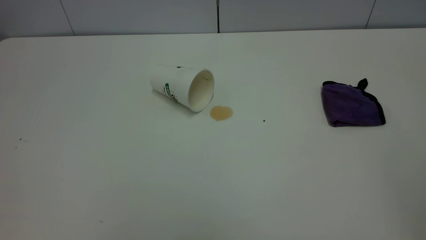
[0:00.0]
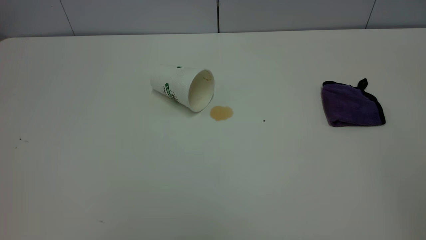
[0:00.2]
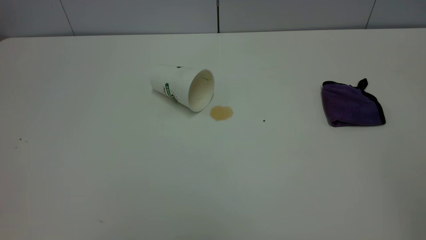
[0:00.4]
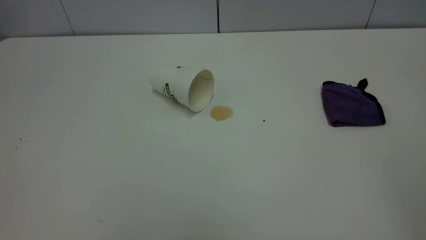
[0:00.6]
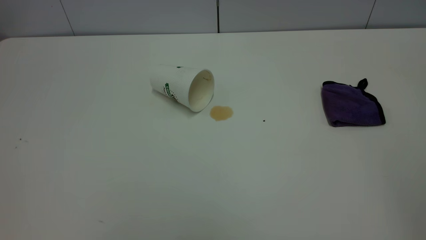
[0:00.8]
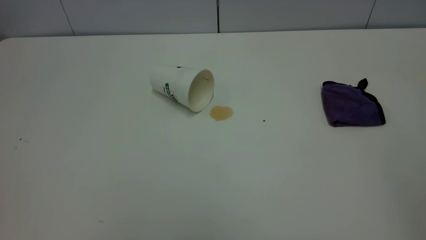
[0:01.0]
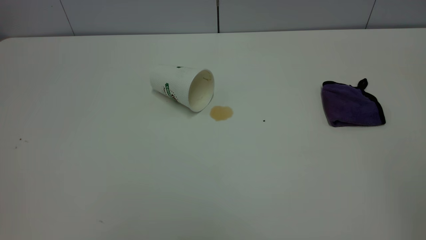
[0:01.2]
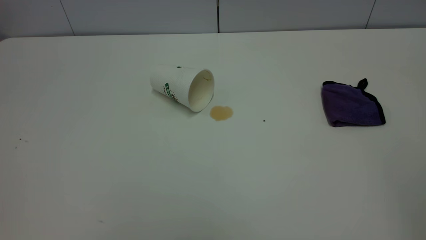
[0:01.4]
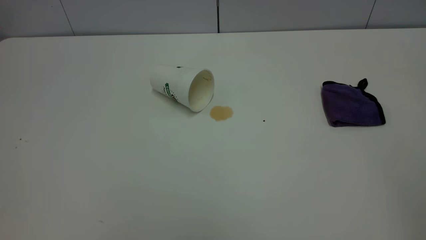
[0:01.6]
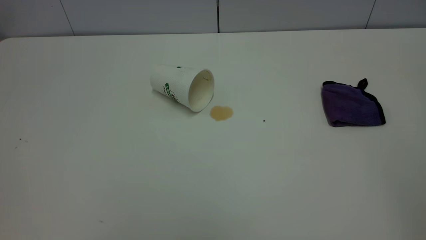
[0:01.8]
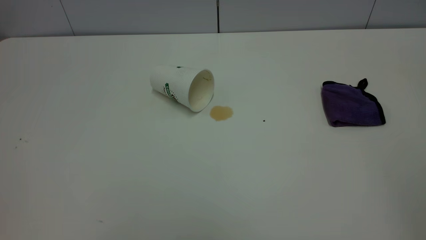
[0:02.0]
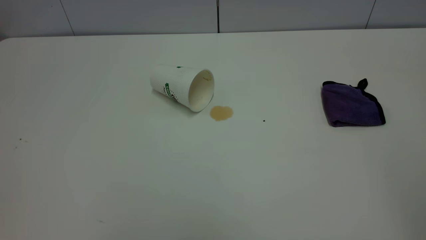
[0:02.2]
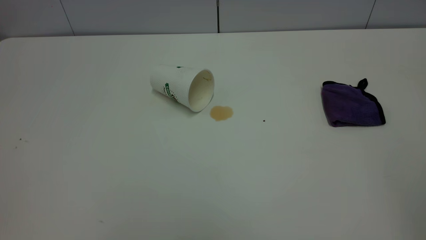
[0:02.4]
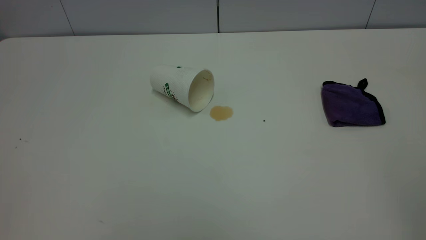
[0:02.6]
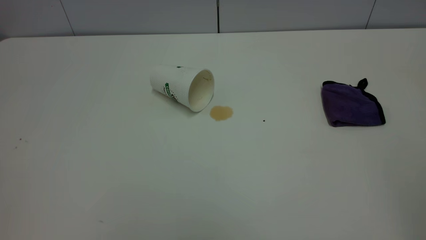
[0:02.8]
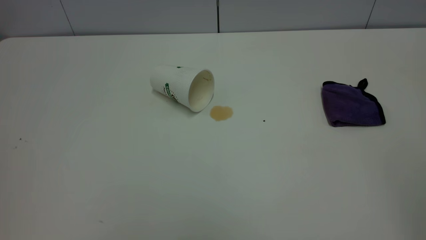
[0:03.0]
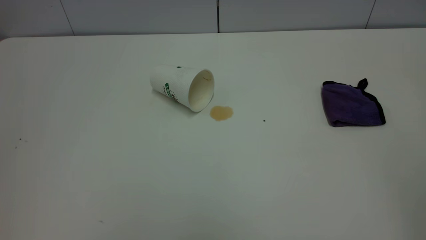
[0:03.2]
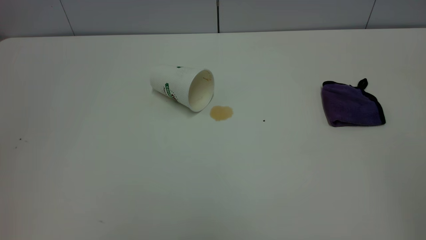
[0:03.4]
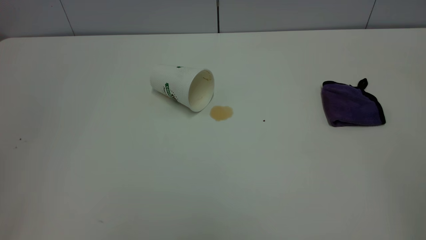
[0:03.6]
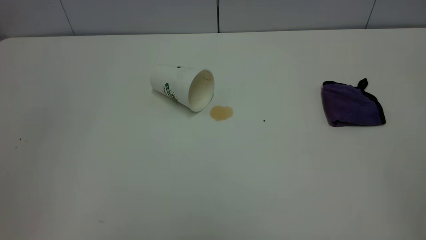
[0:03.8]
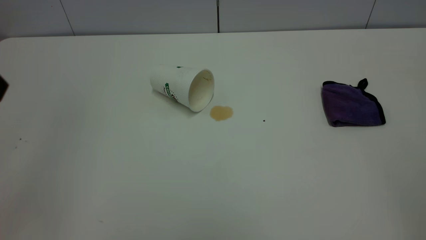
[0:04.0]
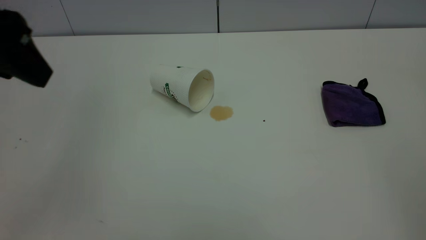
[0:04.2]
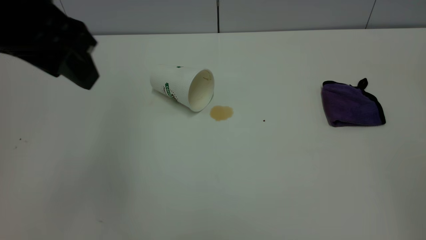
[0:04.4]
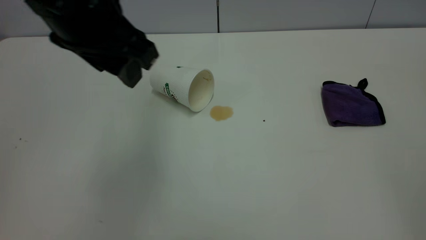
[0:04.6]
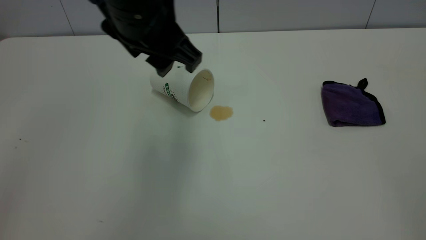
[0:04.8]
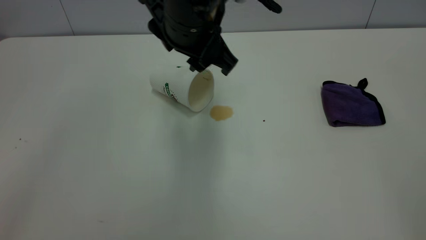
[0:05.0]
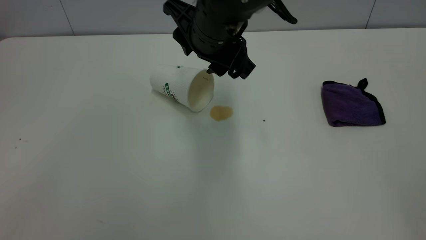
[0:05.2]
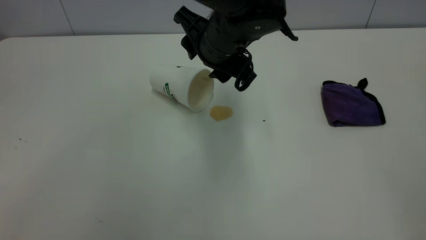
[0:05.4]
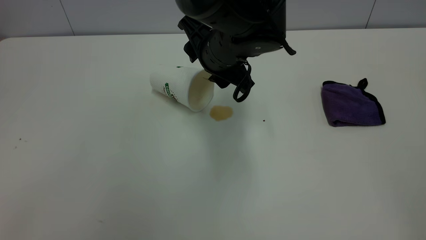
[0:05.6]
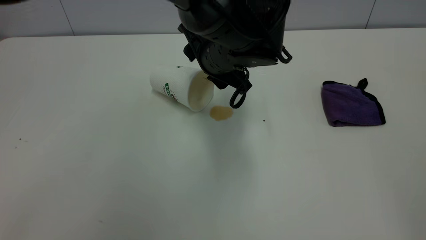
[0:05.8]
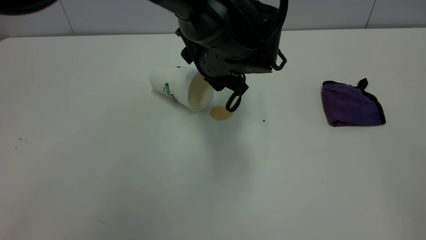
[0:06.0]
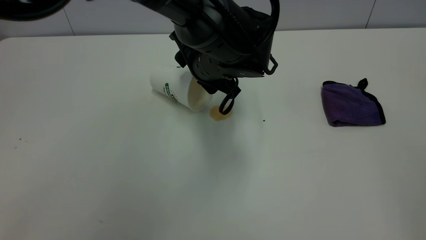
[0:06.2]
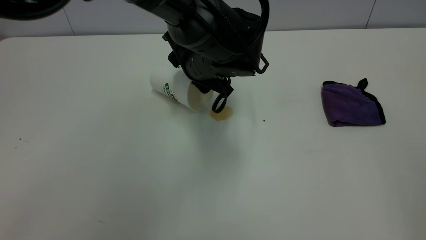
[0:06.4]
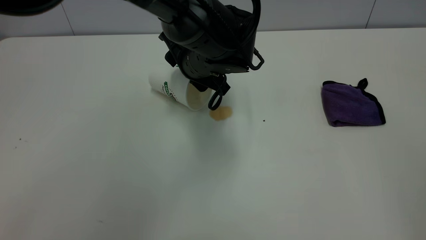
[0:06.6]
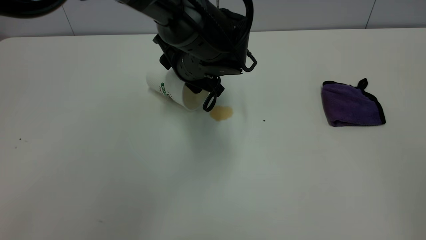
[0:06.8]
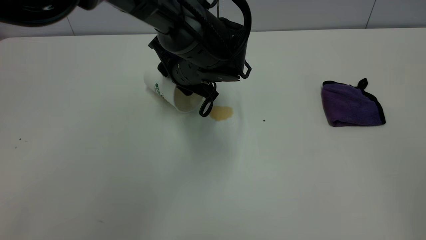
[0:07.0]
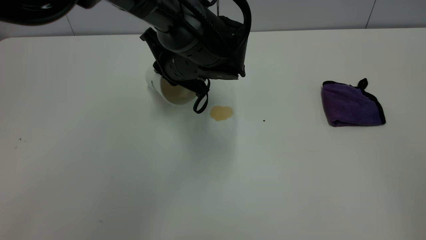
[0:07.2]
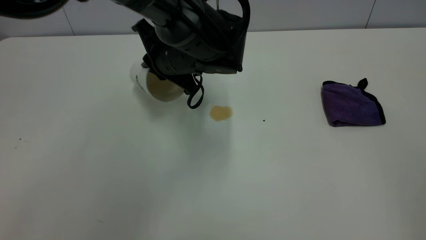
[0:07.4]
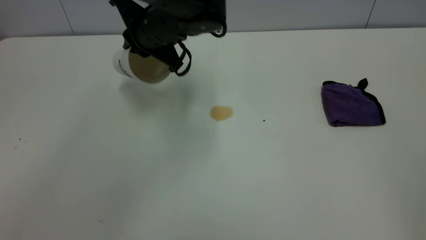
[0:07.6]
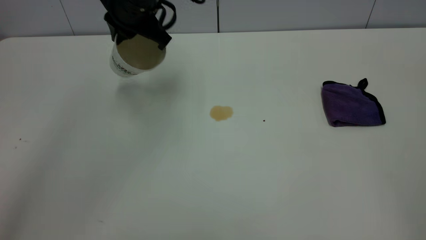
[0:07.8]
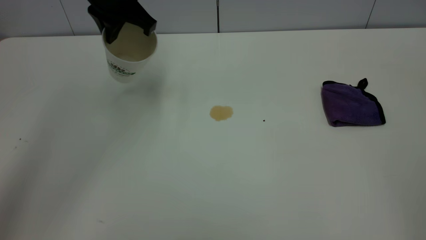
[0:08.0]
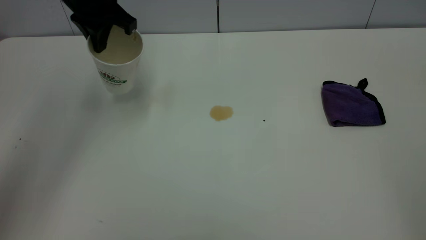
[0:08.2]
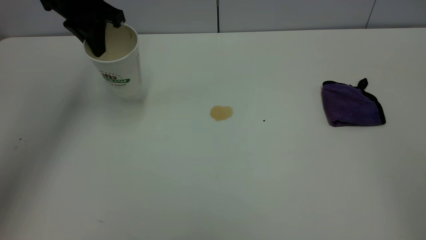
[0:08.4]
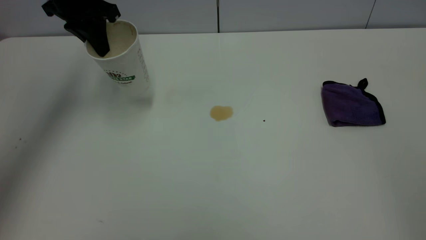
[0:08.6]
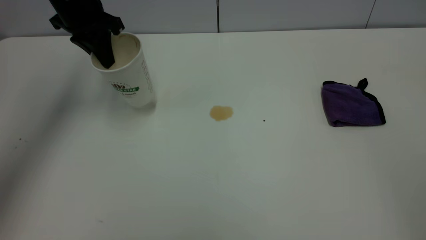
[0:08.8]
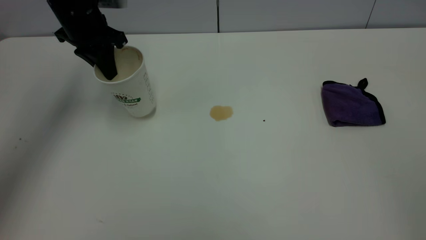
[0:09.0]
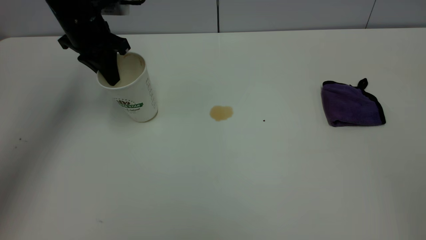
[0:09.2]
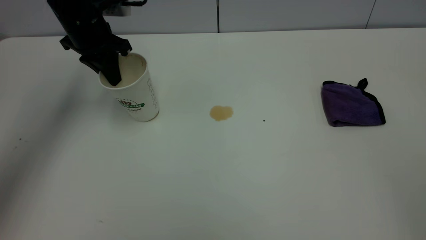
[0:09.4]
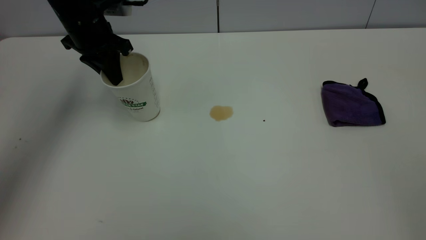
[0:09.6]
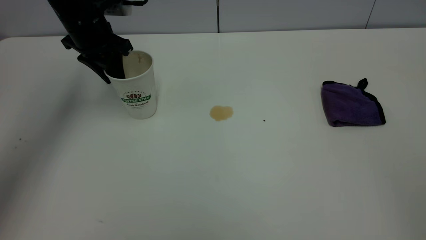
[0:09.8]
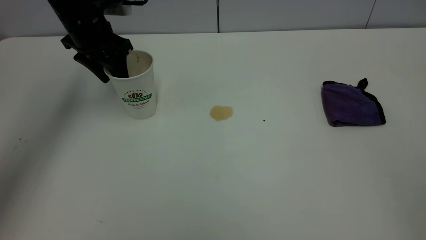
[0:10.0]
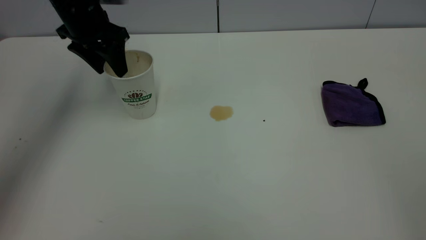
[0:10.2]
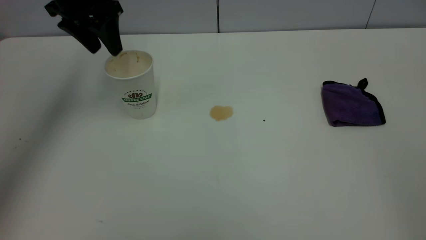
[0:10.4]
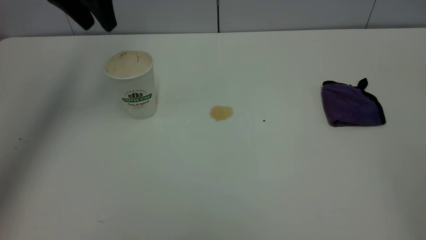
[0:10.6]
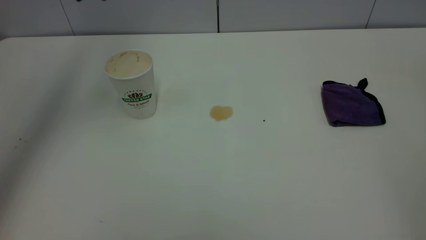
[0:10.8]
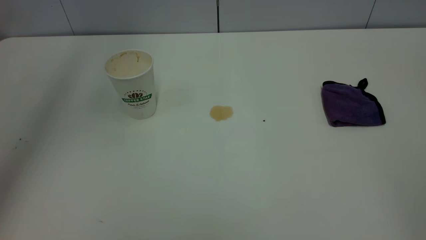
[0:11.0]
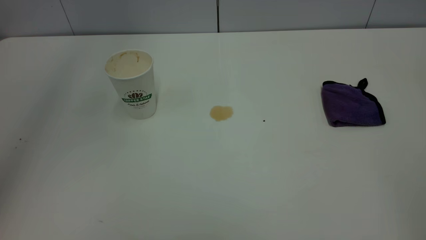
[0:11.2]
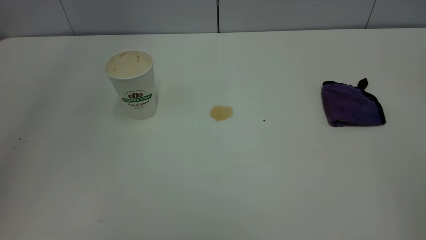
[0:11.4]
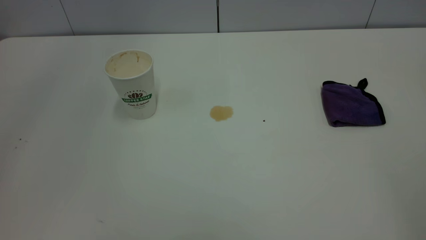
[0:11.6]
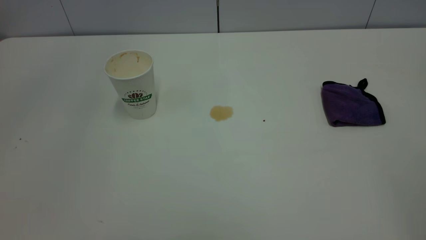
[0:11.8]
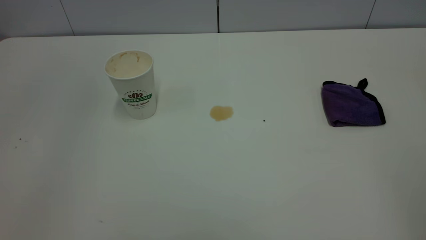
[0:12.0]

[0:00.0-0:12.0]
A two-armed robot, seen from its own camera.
Task of the whole recording: the left gripper pick up the fallen cup and place it upright, the right gripper grasp the purple rag and wipe the tea stain on the table, the right gripper put the purple rag back in its original position.
Step, 0:00.0 to 0:10.4: Stand the paper cup upright.
0:00.0 to 0:01.6: Both grippers stay about where they are.
0:03.0 to 0:04.4: The left gripper shifts some 25 cm forward and to the right.
0:04.4 to 0:06.0: The left gripper goes some 30 cm to the right, downward and forward.
0:06.0 to 0:07.6: The left gripper is displaced to the left by some 10 cm, and closes its fingers.
0:07.6 to 0:09.0: The left gripper heads to the left, covering some 15 cm.
0:09.0 to 0:10.4: The left gripper heads upward, covering roughly 5 cm, and opens its fingers.
0:10.4 to 0:12.0: The left gripper shifts roughly 35 cm backward and upward.

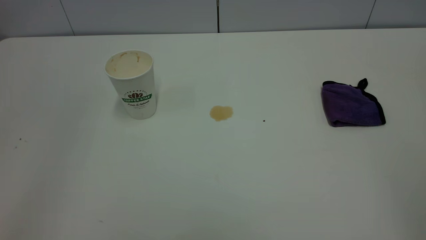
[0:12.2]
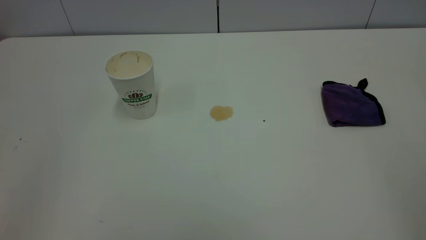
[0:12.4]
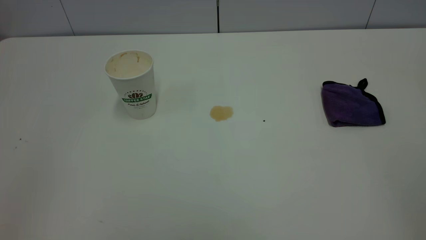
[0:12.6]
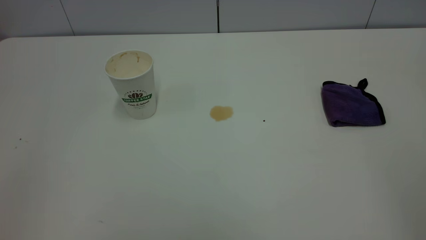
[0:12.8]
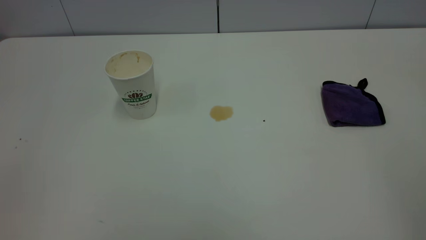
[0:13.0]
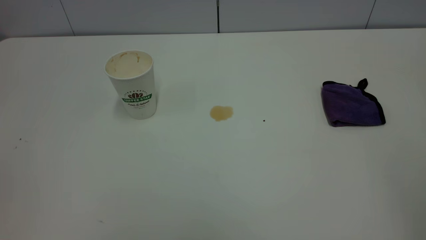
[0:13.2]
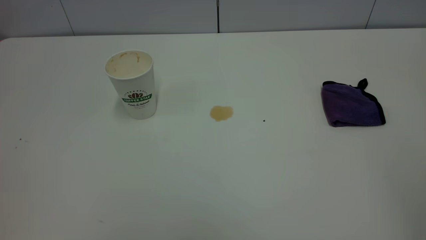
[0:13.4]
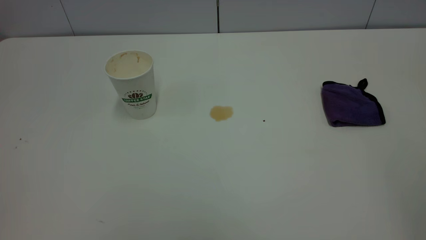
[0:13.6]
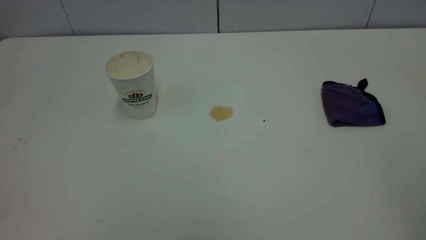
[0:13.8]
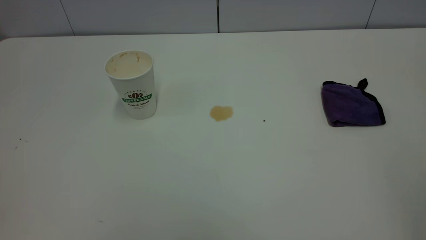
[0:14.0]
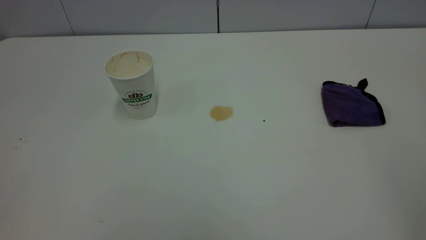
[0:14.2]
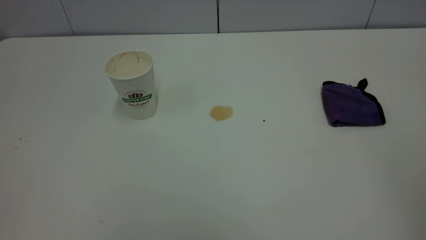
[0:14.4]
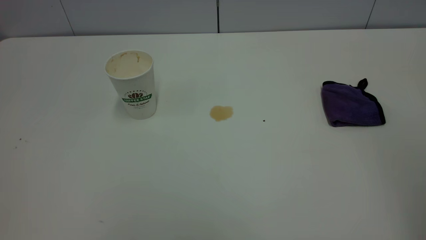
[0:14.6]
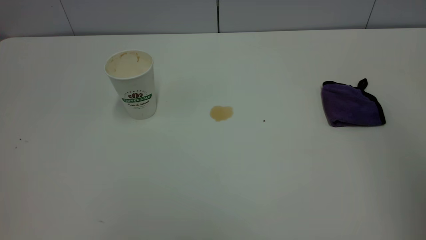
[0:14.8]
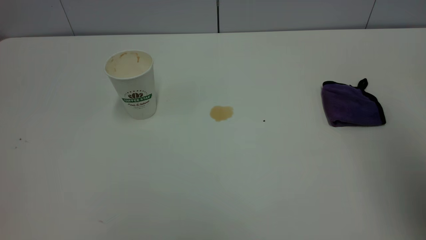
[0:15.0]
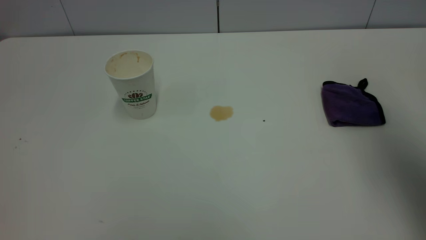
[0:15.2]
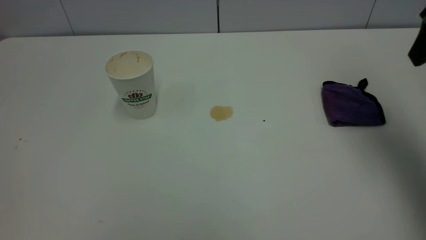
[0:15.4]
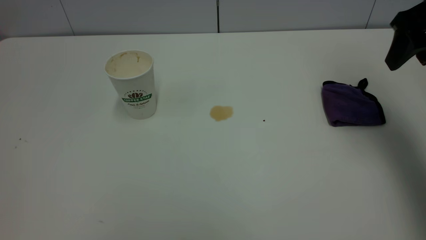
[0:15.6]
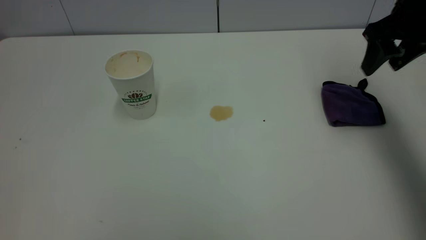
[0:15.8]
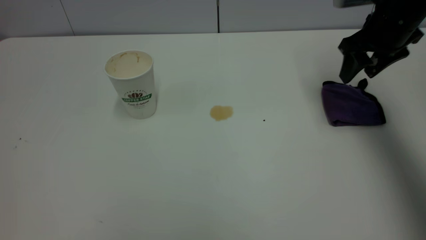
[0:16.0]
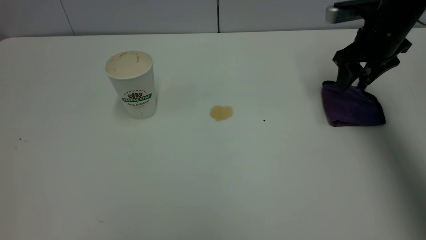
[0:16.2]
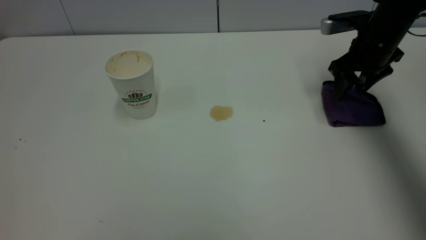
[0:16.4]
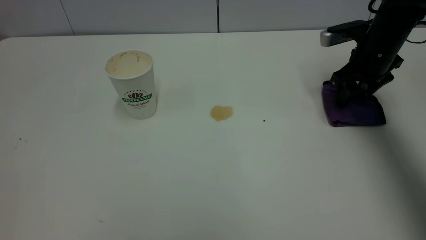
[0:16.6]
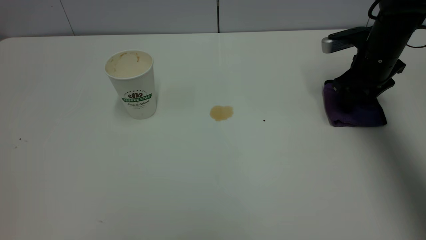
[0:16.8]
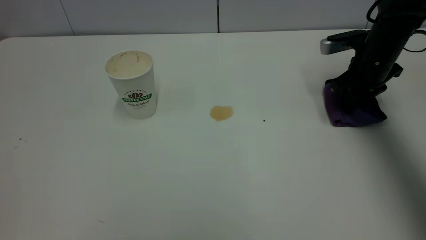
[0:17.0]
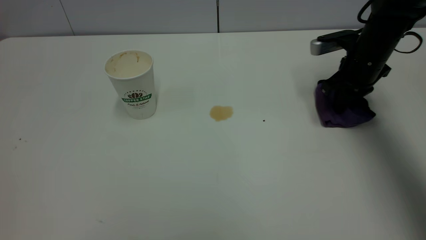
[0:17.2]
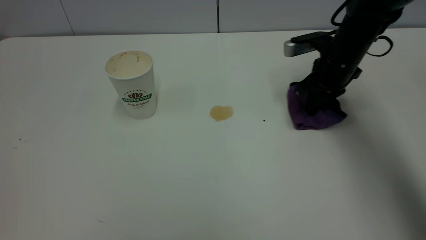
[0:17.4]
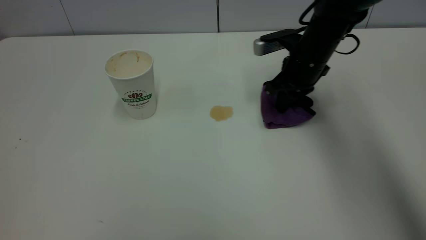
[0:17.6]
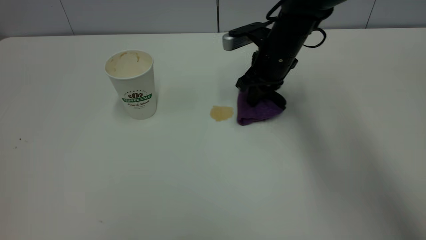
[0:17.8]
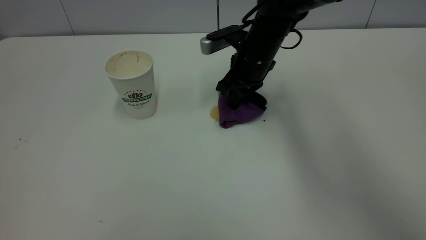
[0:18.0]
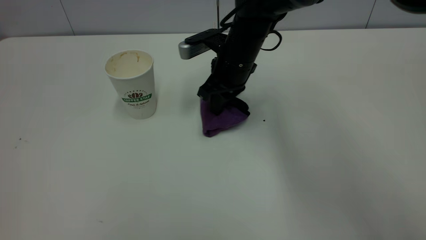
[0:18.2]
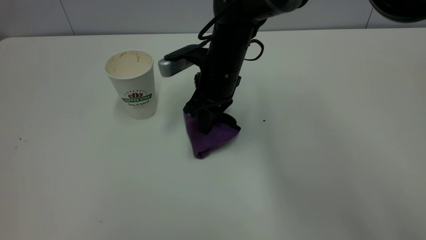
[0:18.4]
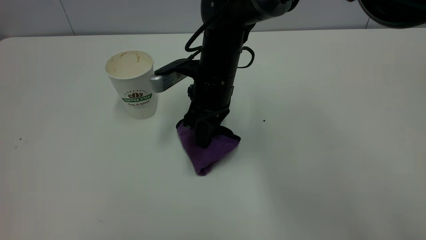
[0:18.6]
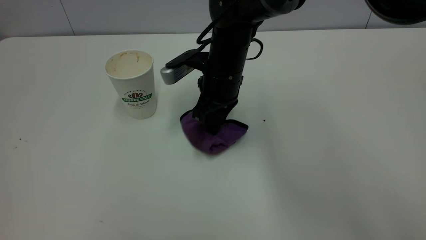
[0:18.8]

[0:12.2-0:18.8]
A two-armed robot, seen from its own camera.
Task of the whole recording: the left gripper pick up the fallen cup and place it upright, the right gripper grasp the purple rag and wipe the tea stain on the table, the right gripper put the purple rag back in its original position.
0:13.8 to 0:15.4: The right gripper travels forward by about 35 cm.
0:15.4 to 0:17.2: The right gripper heads downward and forward, covering roughly 20 cm, and closes.
0:17.2 to 0:18.8: The right gripper goes roughly 25 cm to the left.
